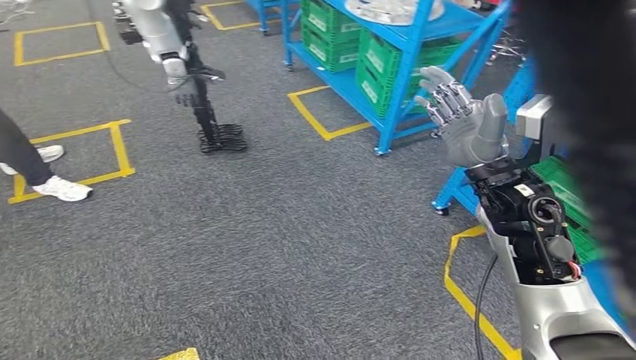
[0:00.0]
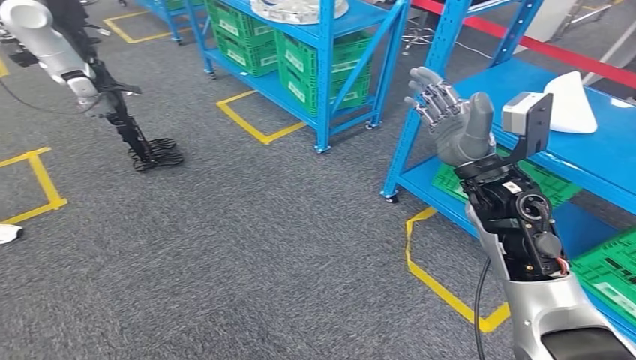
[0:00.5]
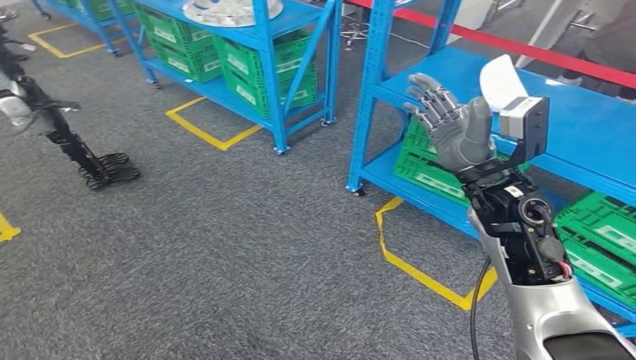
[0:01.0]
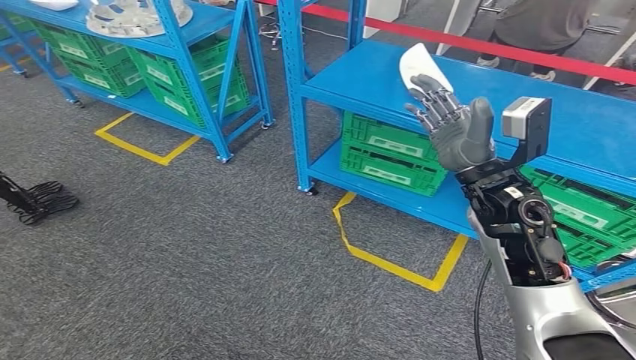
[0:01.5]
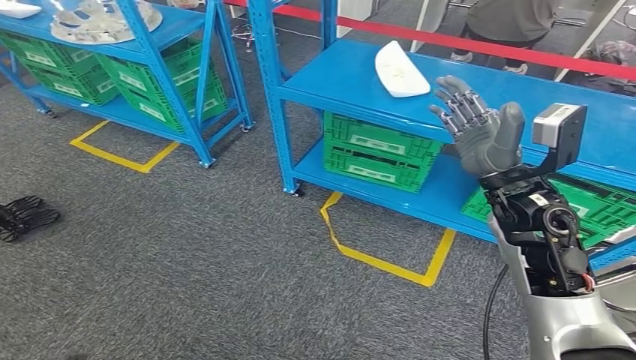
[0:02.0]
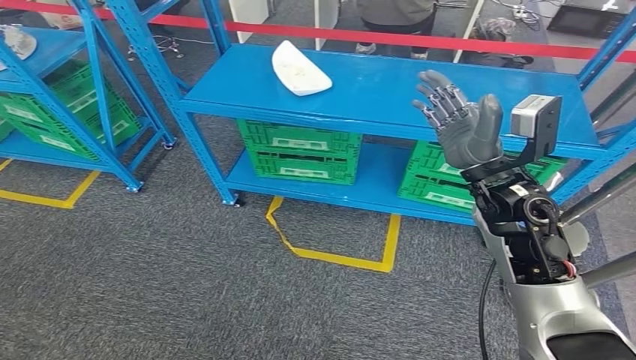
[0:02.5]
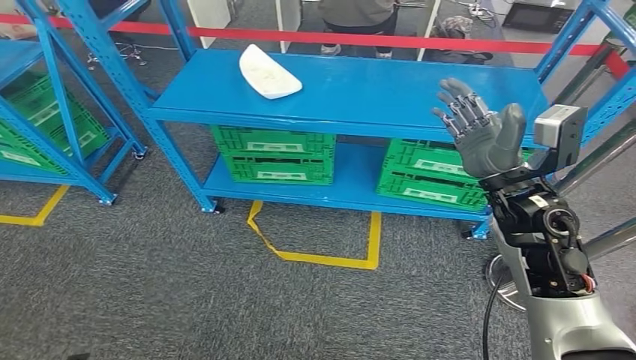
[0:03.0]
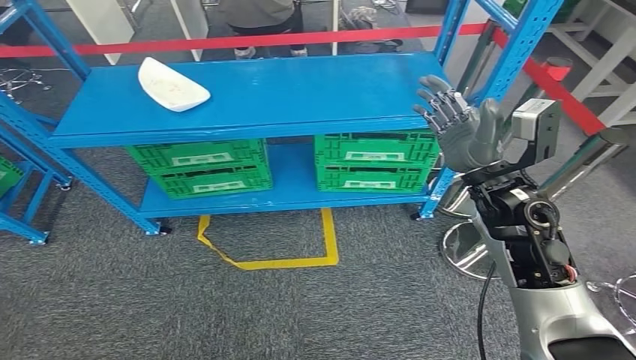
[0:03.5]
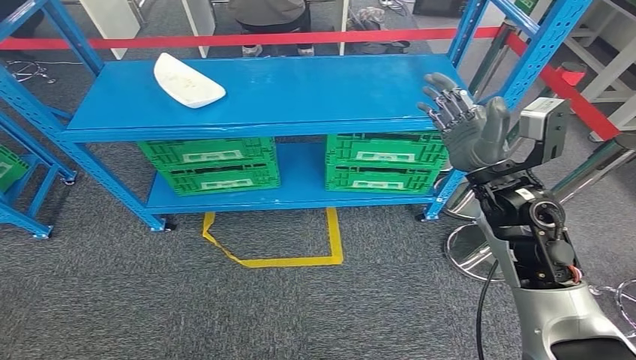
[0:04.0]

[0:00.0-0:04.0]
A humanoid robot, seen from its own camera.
Step, 0:00.0 to 0:04.0: Return to the initial position at the workbench.
